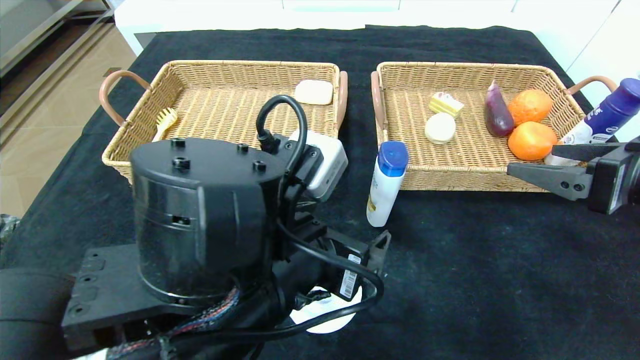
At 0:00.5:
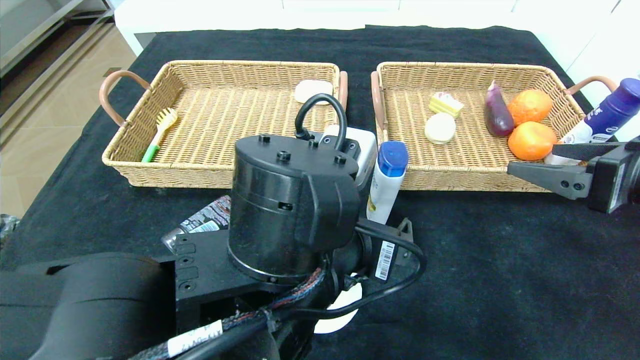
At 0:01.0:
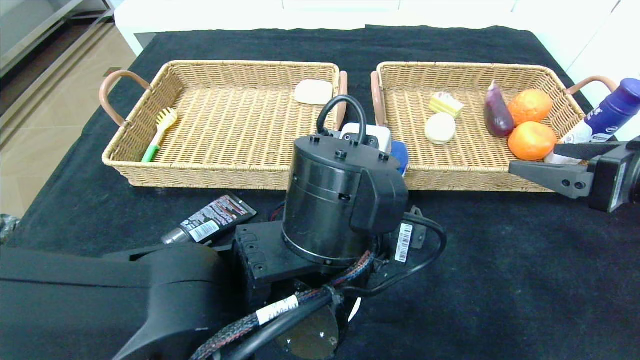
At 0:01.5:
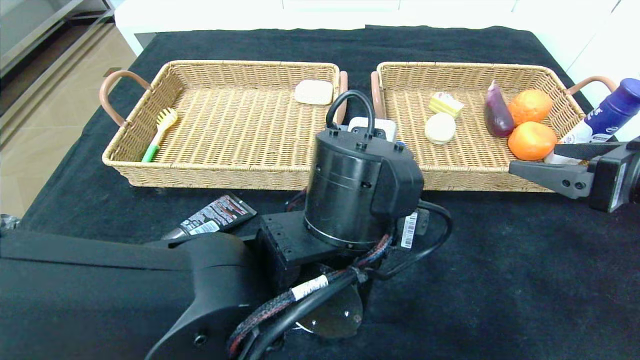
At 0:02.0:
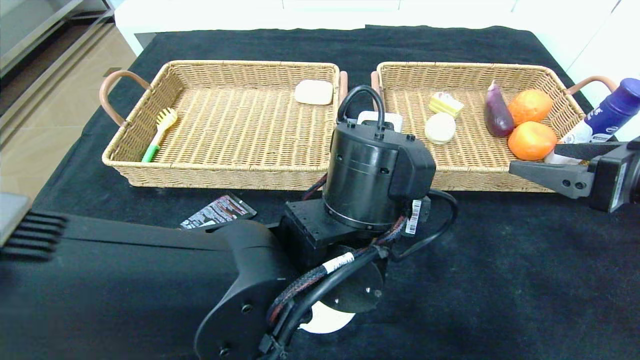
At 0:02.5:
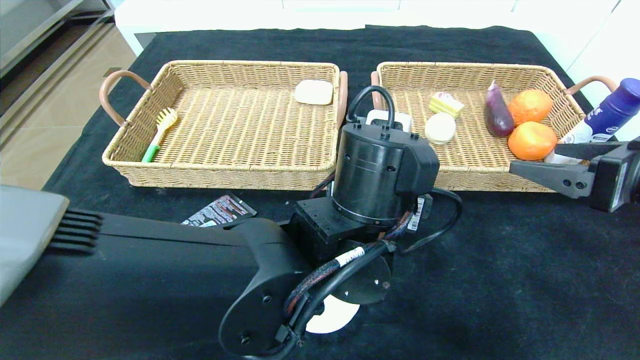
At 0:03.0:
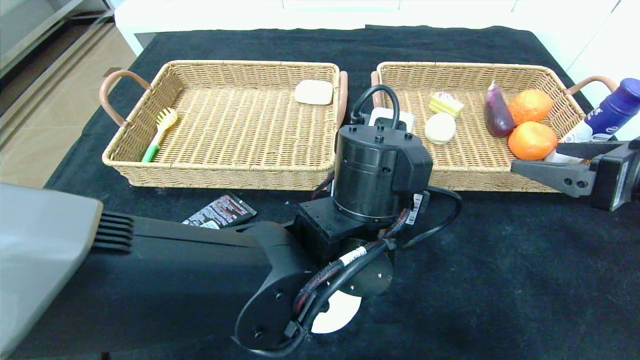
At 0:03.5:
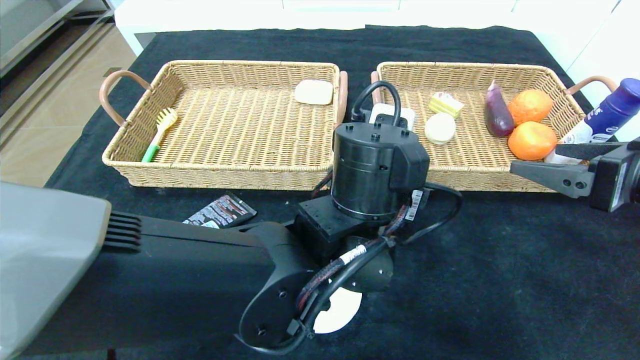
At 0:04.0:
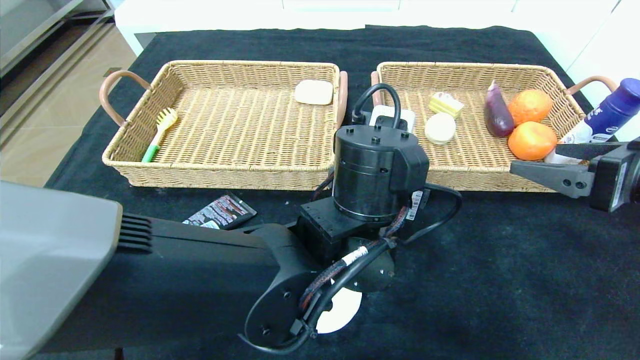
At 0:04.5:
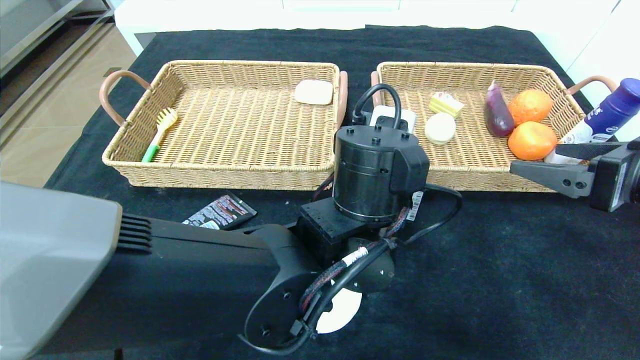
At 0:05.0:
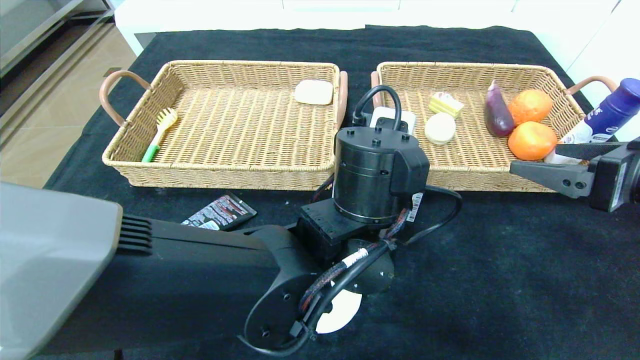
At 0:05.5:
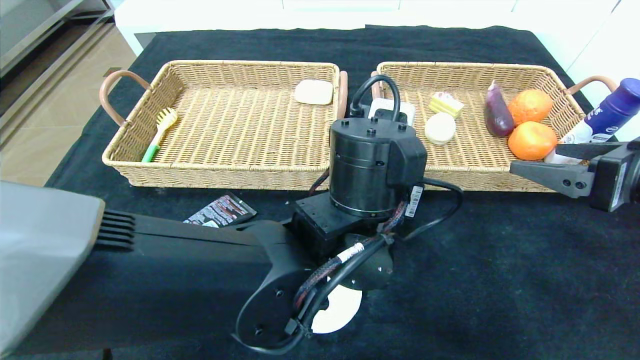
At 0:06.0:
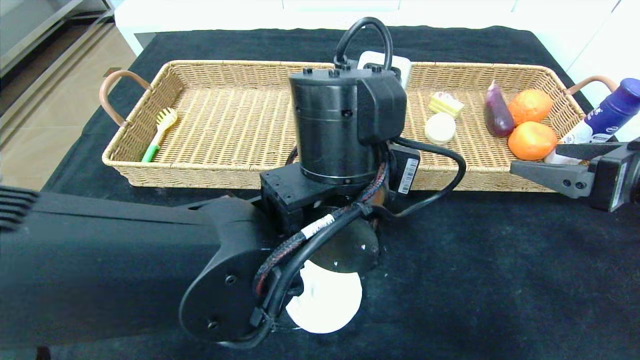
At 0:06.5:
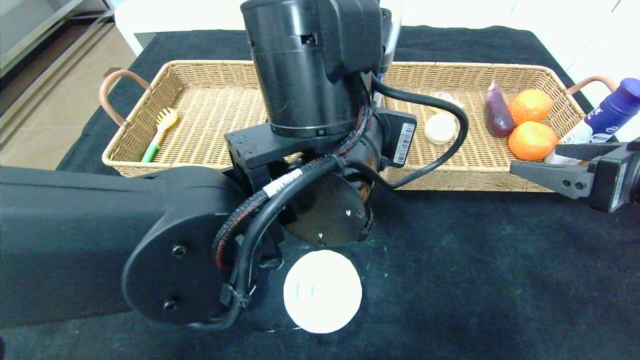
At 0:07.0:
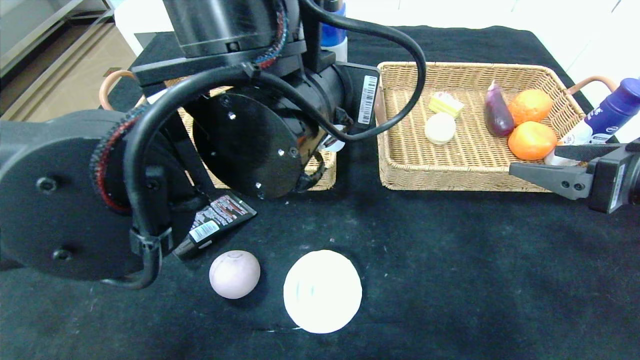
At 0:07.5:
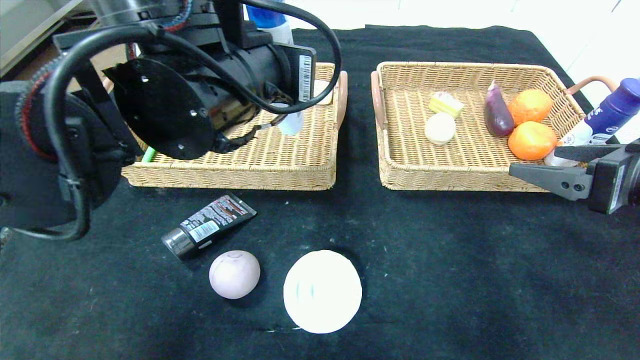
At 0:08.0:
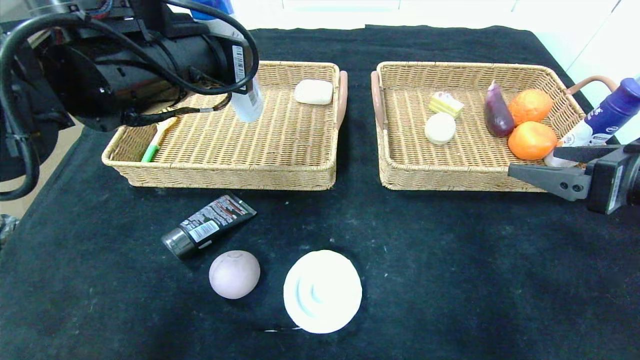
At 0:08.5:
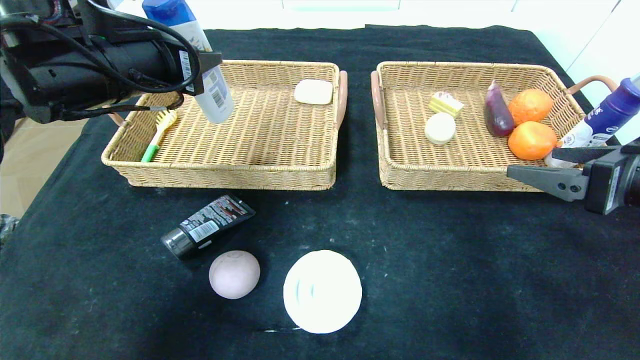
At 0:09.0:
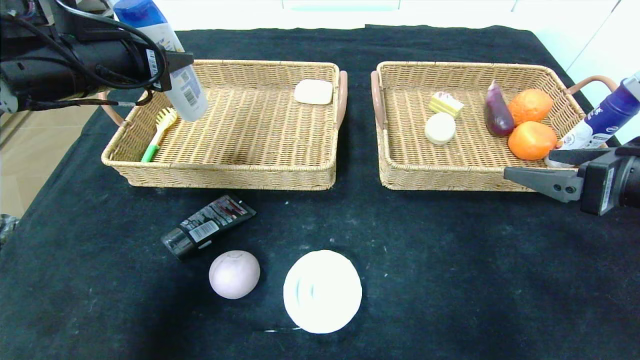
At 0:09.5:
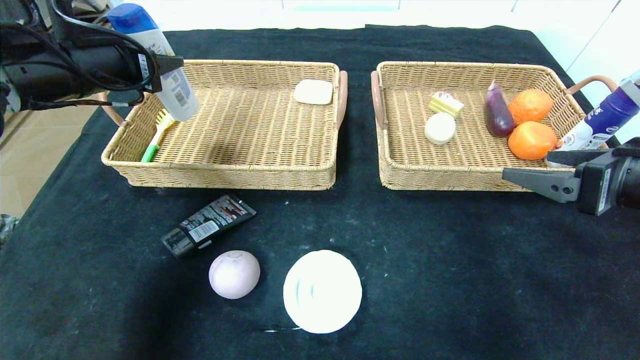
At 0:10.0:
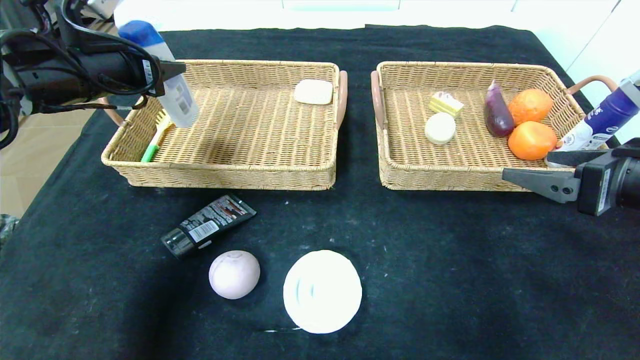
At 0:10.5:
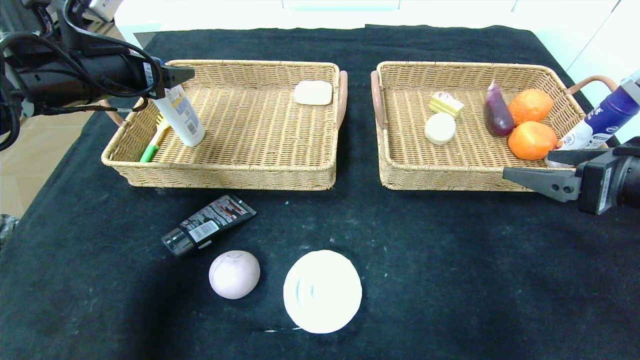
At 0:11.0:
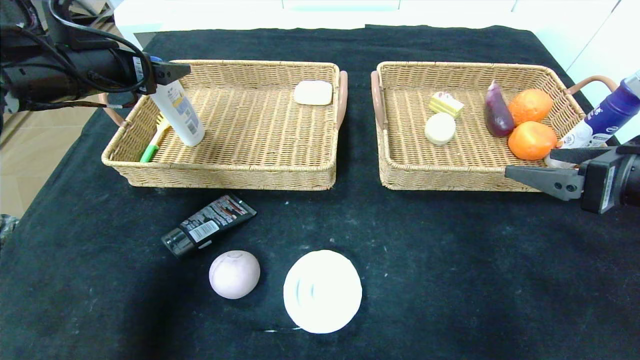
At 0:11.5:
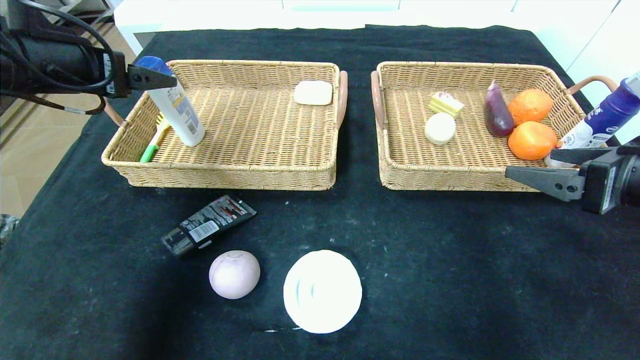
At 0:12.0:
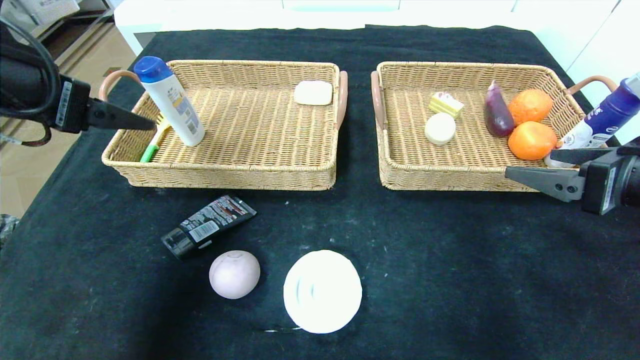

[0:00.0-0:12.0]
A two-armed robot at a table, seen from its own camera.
Step, 0:00.0 to 0:10.5: Grasp the shampoo and put it in the left basket.
0:00.0 to 0:02.0: The left gripper shifts approximately 10 cm to the right and forward.
0:02.0 to 0:04.0: The grippers make only small movements.
0:04.0 to 0:06.0: The left gripper closes its fingers.
0:06.0 to 0:08.0: The left gripper shifts approximately 20 cm to the left and upward.
0:08.0 to 0:10.0: The left gripper shifts roughly 15 cm to the left and forward.
0:10.0 to 0:12.0: The left gripper moves backward, about 10 cm, and opens up.

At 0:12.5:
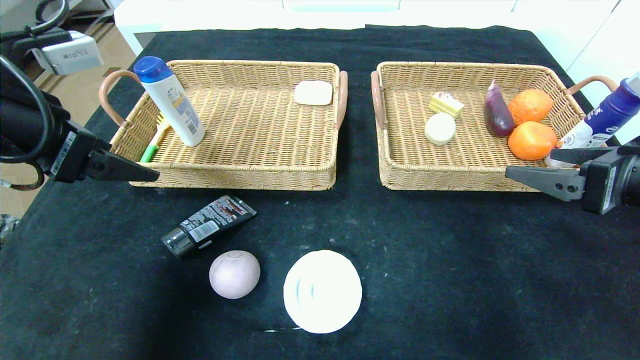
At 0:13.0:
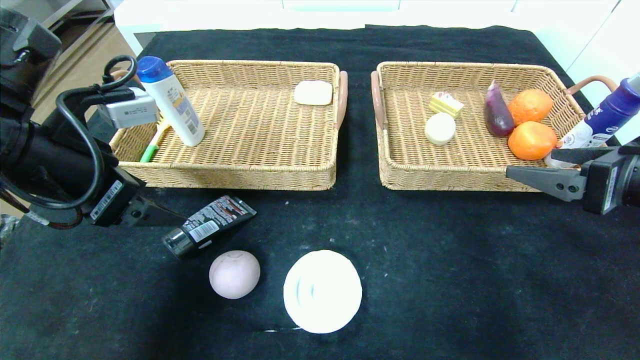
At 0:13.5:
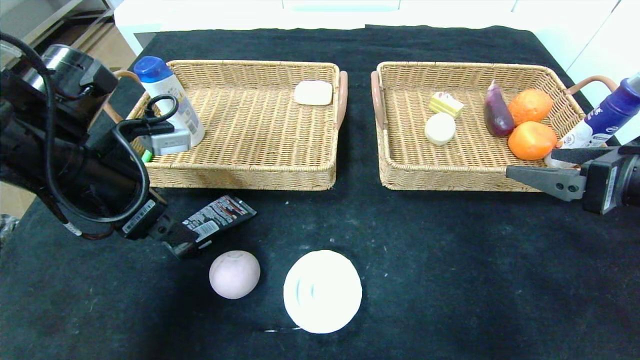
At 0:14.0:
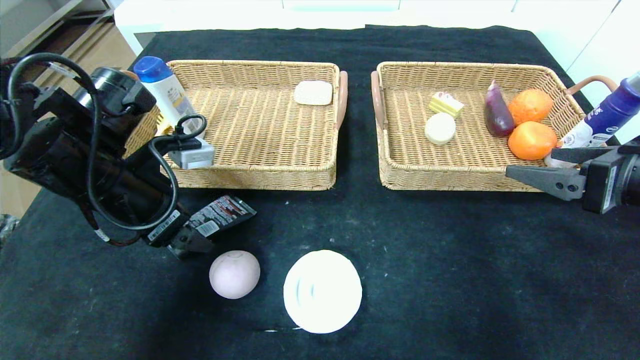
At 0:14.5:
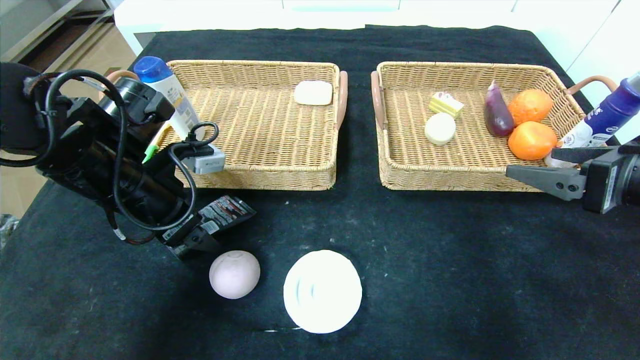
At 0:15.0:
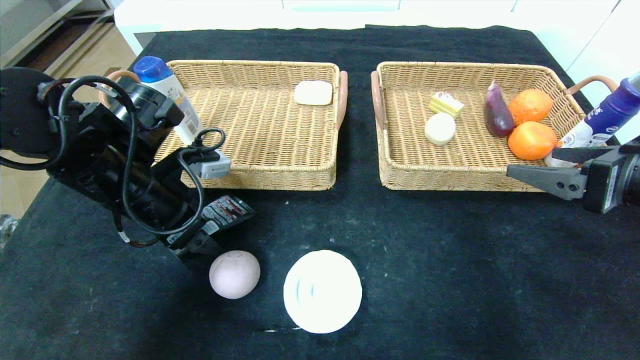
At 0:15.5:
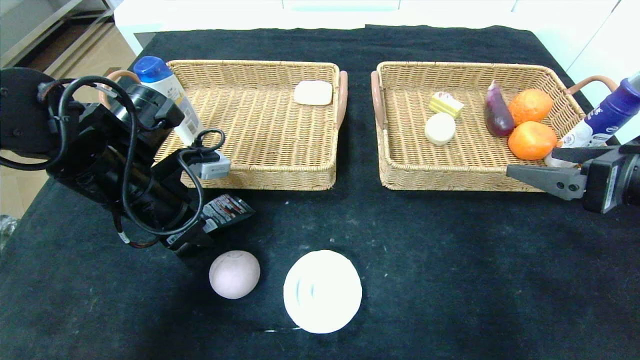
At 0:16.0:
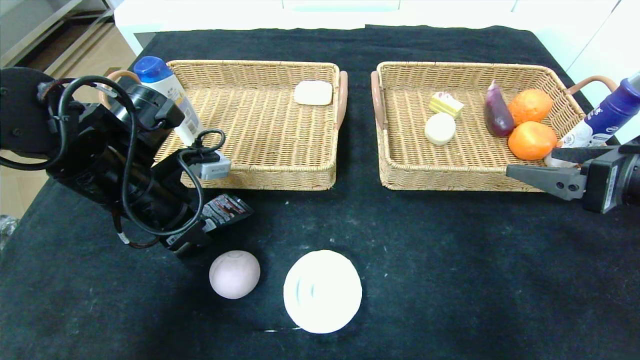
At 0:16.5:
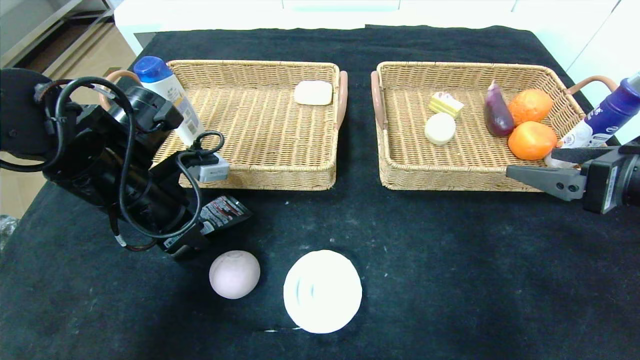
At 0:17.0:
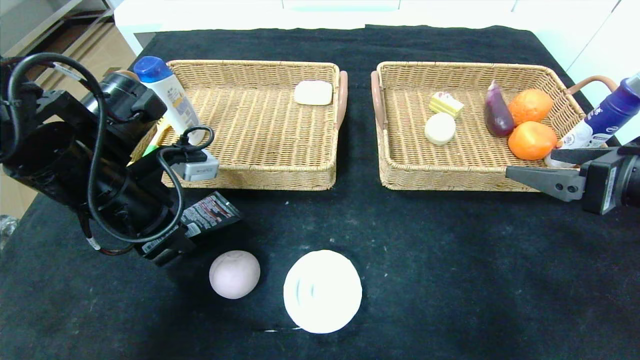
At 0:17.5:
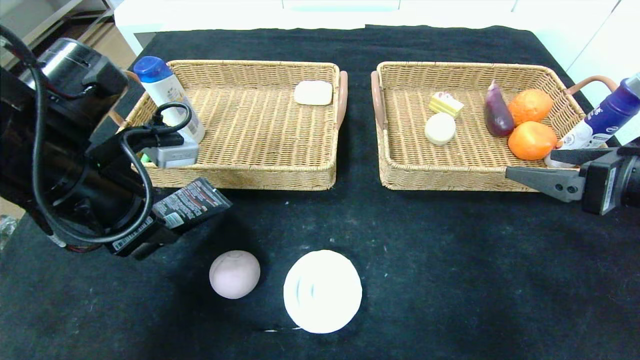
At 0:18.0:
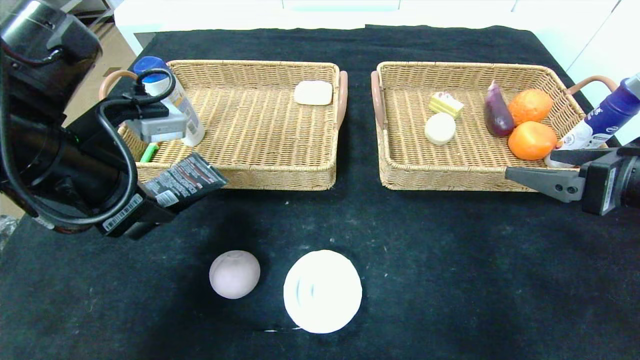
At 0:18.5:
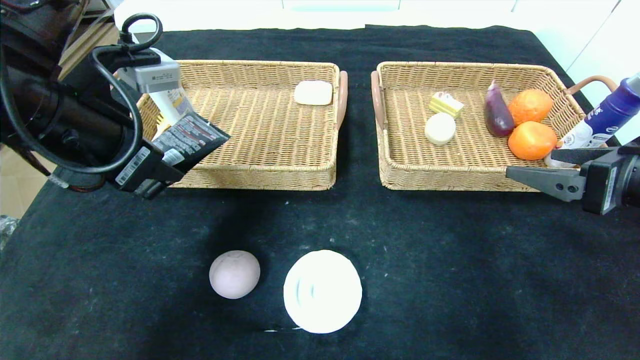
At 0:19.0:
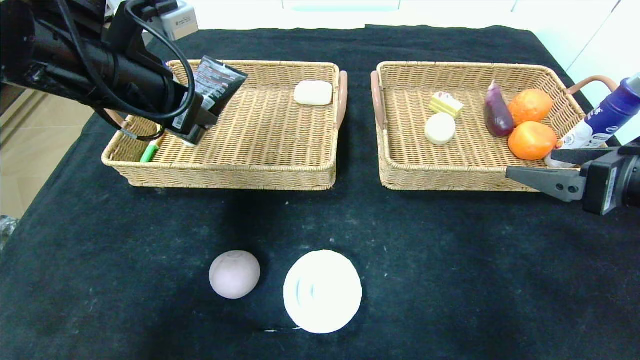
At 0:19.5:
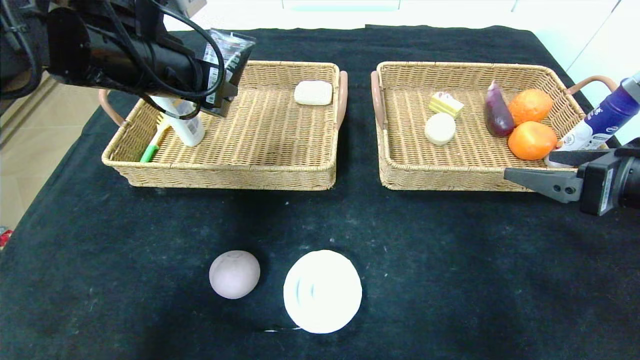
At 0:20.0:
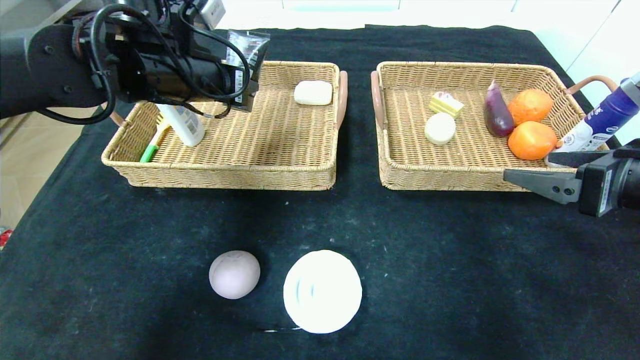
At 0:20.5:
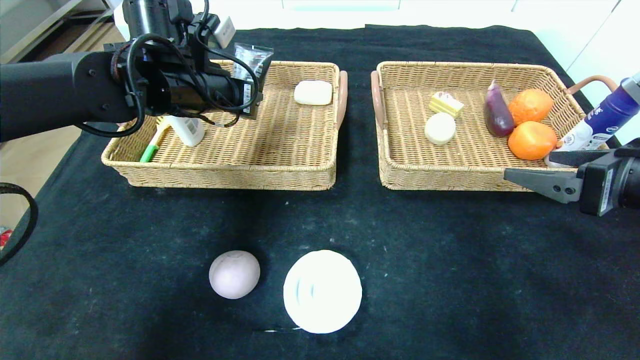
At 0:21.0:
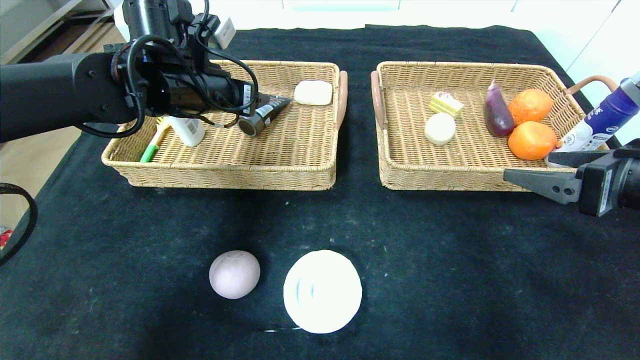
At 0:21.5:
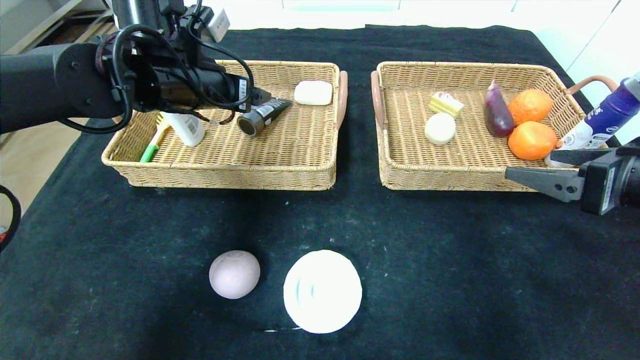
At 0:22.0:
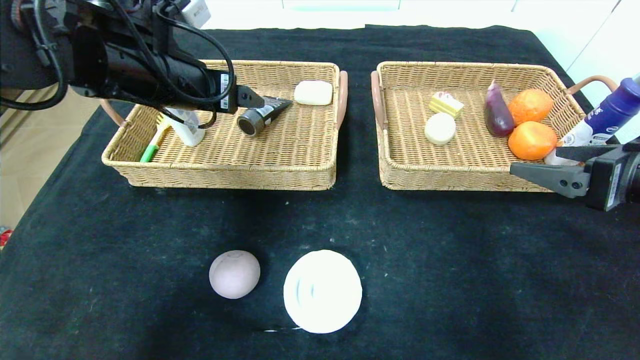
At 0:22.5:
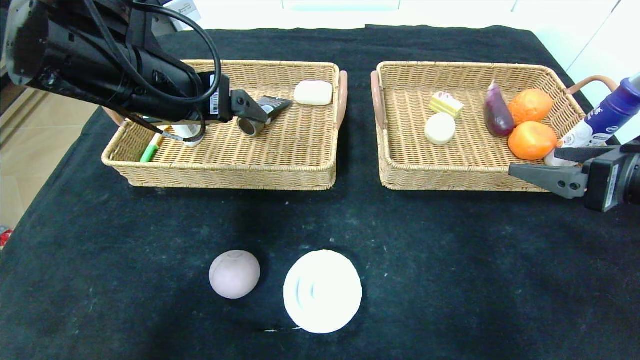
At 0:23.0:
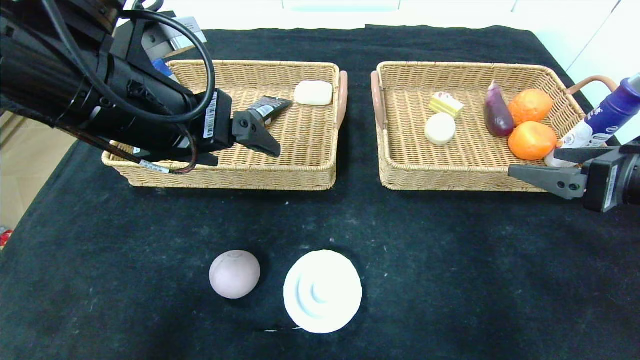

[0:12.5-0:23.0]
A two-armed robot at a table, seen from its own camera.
Step, 0:12.5 to 0:21.0: Grasp the soft cleanser and put it in the left basket.
0:12.5 to 0:14.5: The left gripper moves downward, to the right and forward, approximately 15 cm.
0:14.5 to 0:16.5: The left gripper closes up.
0:16.5 to 0:19.0: The left gripper travels upward by about 10 cm.
0:19.0 to 0:21.0: The left gripper travels forward by some 10 cm, and opens.
0:21.0 to 0:23.0: The left gripper travels backward by some 15 cm.
